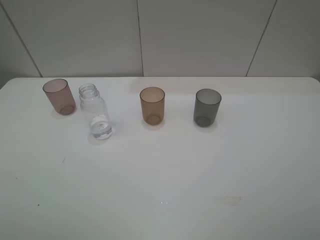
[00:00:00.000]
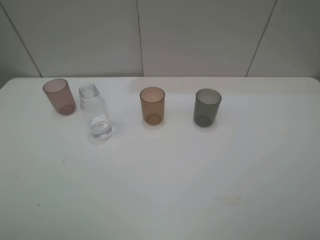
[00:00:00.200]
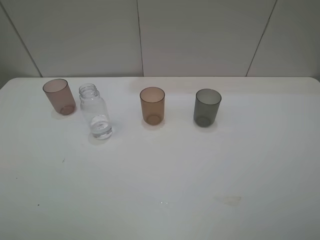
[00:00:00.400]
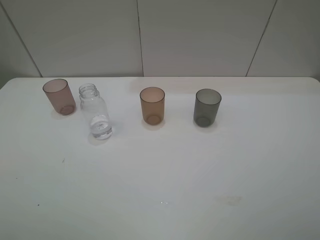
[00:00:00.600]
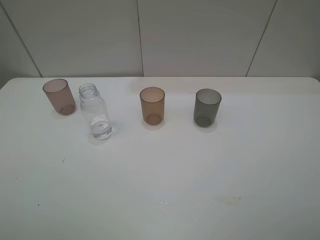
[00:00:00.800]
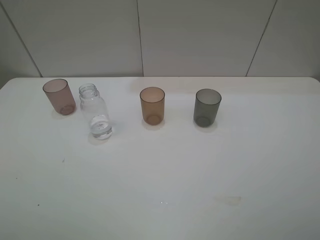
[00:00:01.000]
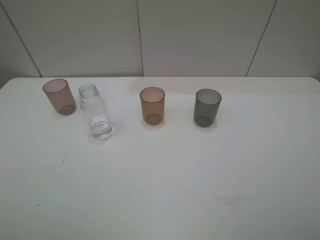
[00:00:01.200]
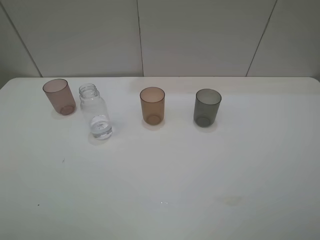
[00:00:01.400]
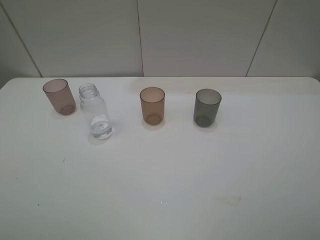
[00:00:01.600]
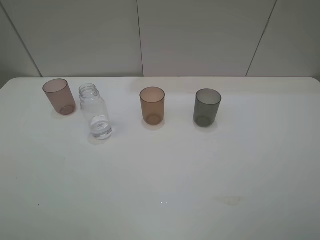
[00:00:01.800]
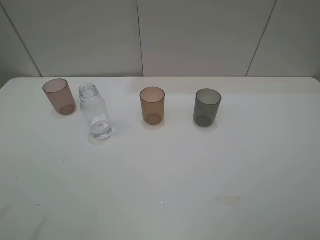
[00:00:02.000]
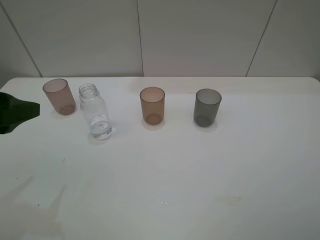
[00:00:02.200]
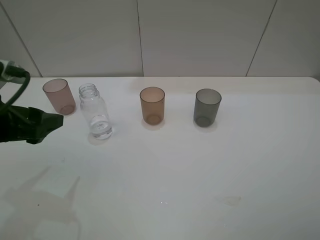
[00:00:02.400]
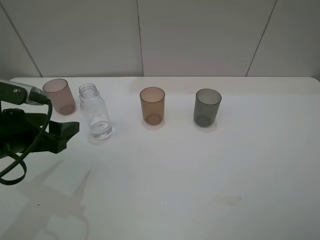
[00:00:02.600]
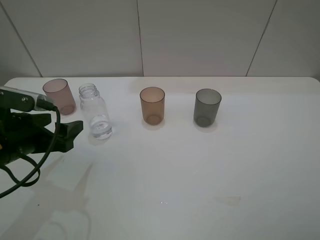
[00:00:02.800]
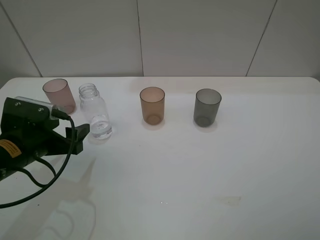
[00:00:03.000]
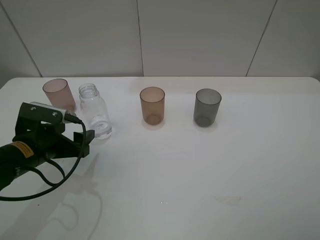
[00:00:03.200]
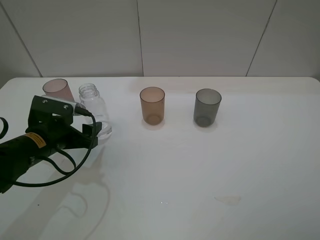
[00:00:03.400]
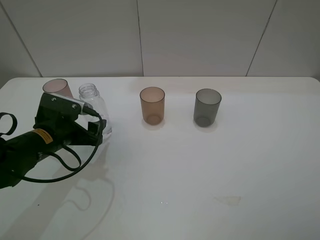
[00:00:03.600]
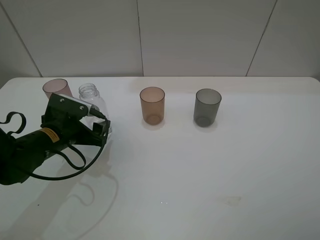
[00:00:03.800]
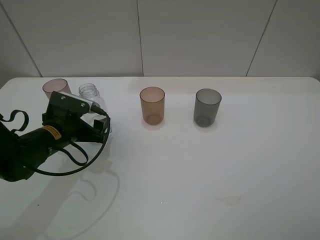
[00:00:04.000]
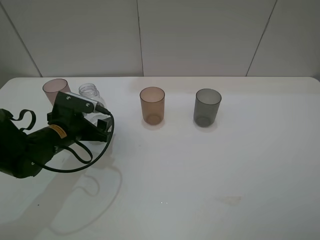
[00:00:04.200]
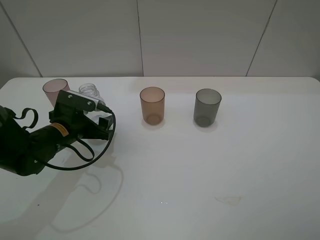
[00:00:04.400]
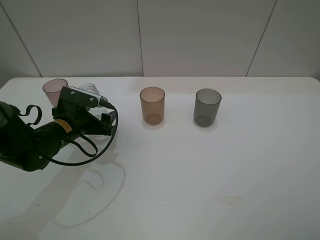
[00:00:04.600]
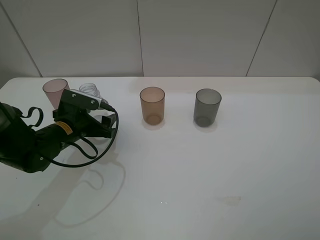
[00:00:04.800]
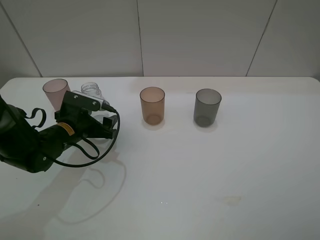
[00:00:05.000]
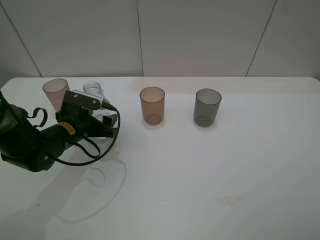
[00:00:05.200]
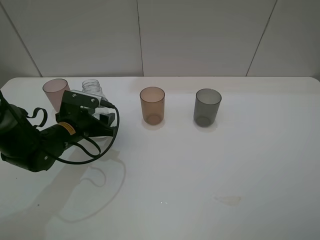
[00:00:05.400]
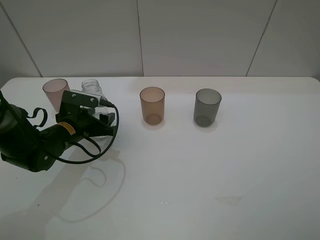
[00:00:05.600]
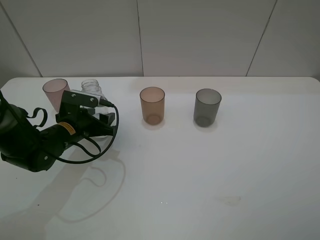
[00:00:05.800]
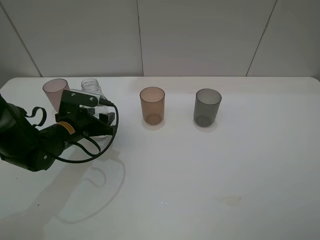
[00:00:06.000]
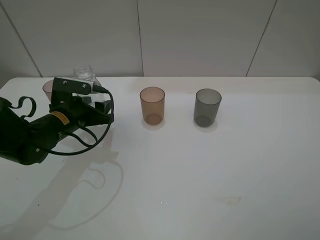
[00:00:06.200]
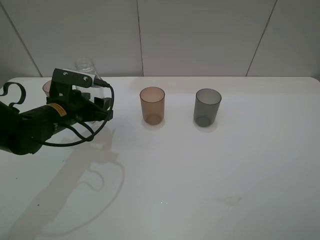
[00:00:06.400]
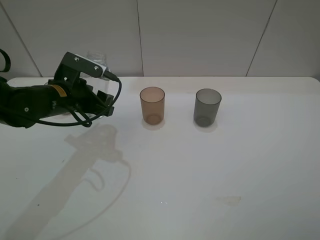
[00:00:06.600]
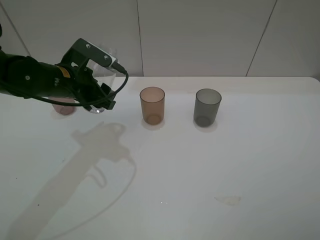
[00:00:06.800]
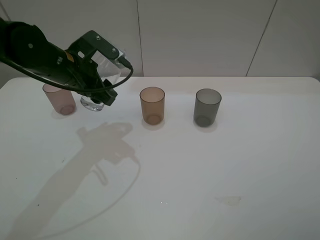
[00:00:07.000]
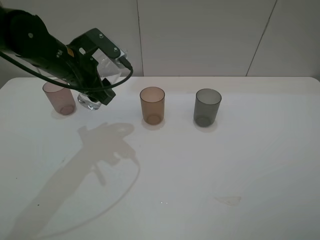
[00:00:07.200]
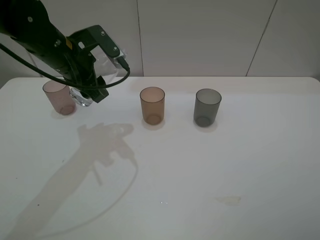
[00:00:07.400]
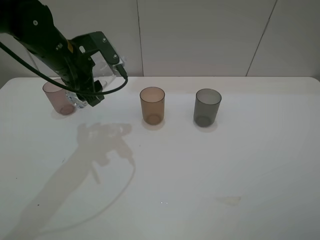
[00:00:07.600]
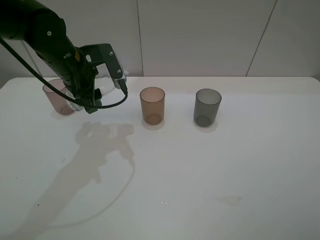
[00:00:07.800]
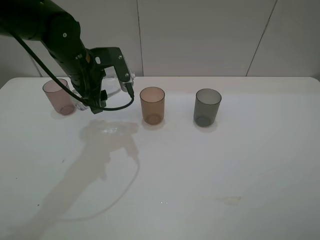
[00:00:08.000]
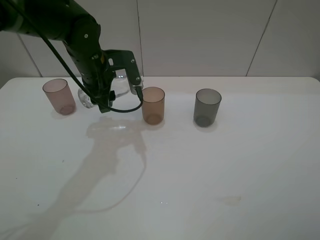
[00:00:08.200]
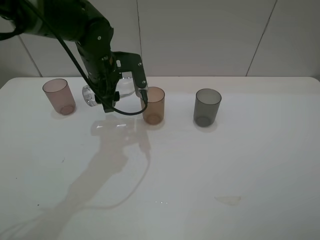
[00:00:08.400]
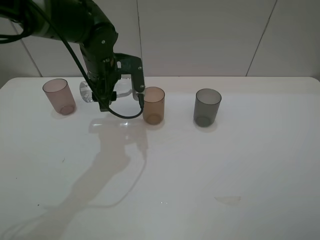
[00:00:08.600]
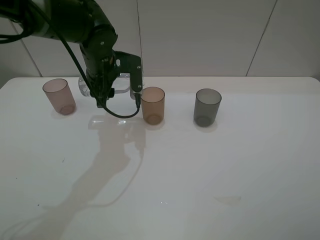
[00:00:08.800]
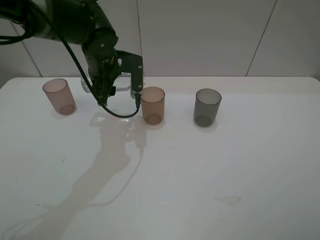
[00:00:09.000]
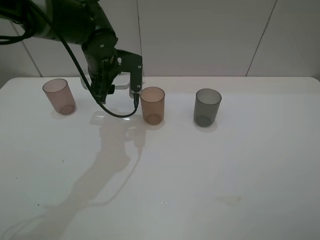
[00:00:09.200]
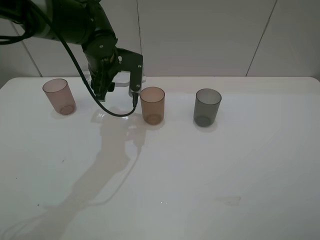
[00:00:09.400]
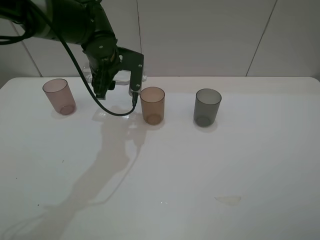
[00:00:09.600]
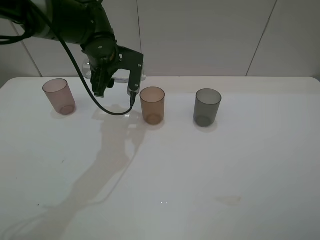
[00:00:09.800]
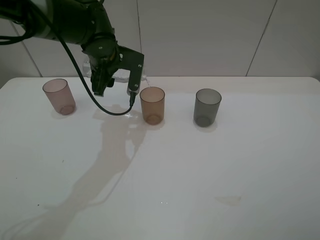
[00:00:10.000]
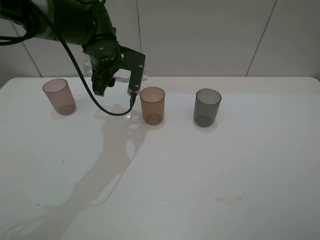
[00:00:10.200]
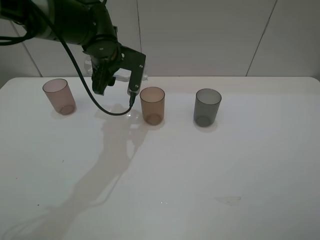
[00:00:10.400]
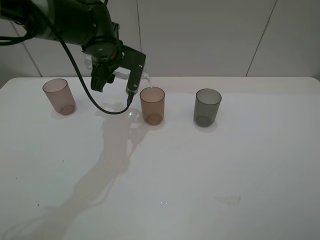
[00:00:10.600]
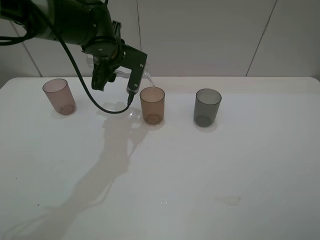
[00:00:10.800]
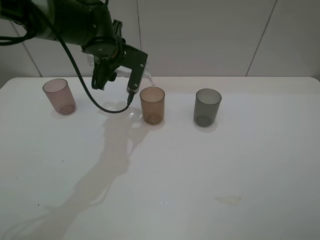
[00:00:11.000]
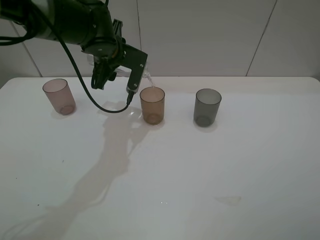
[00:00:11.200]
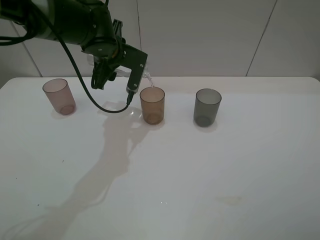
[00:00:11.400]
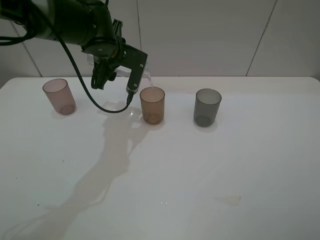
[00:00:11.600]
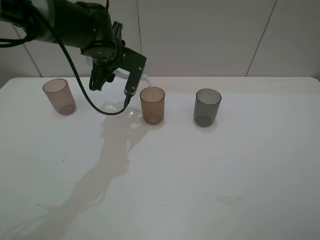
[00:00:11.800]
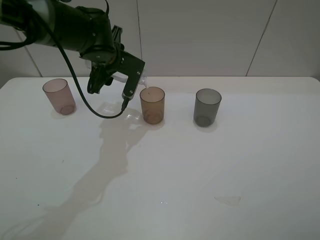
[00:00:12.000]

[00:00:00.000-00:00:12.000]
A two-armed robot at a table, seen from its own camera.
Task of the whole recording: pick up the bottle filled with water and pour water into the middle cup of the three cups.
Step, 00:00:00.000 to 00:00:05.400: Grasp the transparent bottle with the left gripper.
00:00:01.600 to 00:00:03.000: The left gripper is displaced downward and forward by roughly 25 cm.
00:00:03.000 to 00:00:04.400: The left gripper heads forward, covering about 10 cm.
00:00:04.400 to 00:00:06.000: The left gripper closes up.
00:00:06.000 to 00:00:07.600: The left gripper goes about 15 cm upward.
00:00:07.600 to 00:00:09.000: The left gripper heads to the right, covering some 5 cm.
00:00:09.000 to 00:00:10.400: There are only small adjustments of the grippers.
00:00:10.400 to 00:00:12.000: The grippers move only a little.

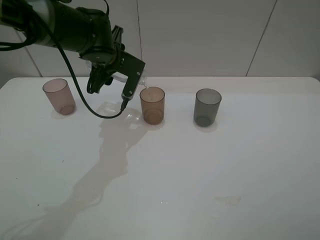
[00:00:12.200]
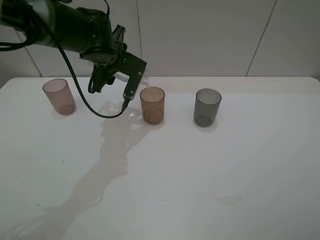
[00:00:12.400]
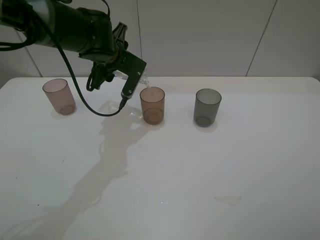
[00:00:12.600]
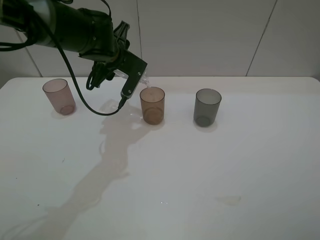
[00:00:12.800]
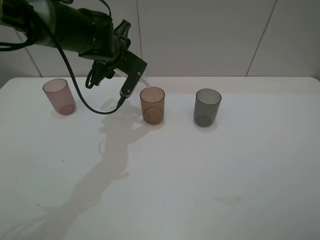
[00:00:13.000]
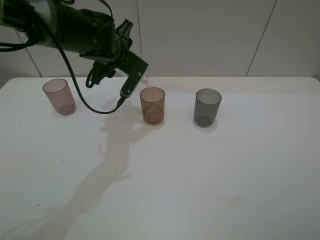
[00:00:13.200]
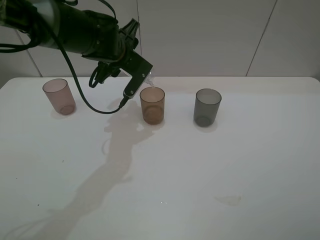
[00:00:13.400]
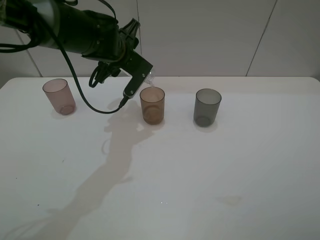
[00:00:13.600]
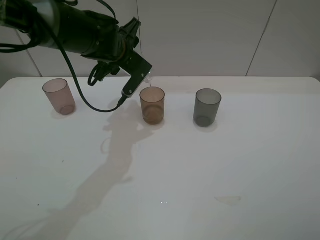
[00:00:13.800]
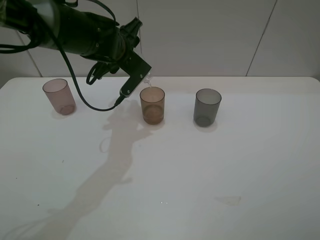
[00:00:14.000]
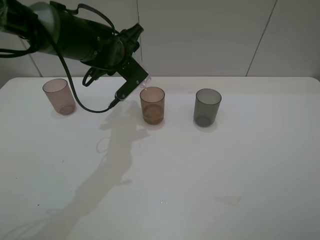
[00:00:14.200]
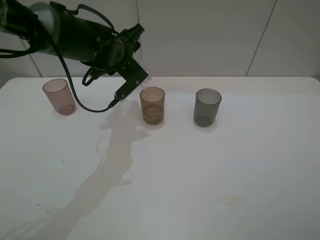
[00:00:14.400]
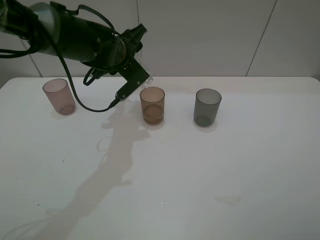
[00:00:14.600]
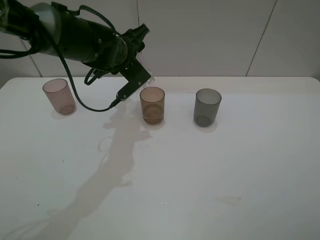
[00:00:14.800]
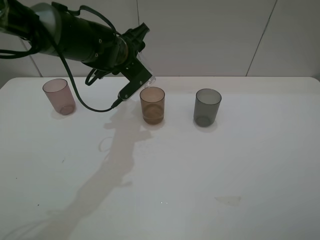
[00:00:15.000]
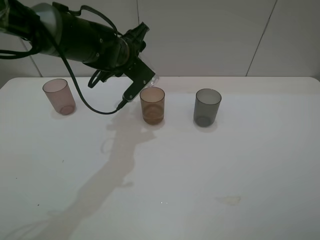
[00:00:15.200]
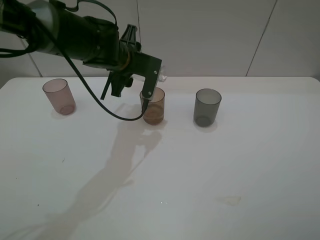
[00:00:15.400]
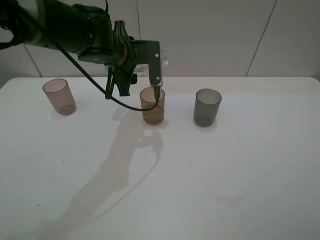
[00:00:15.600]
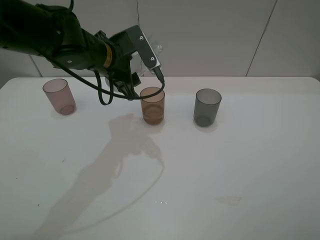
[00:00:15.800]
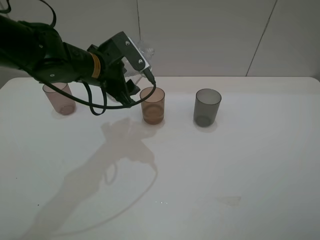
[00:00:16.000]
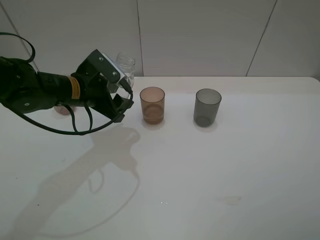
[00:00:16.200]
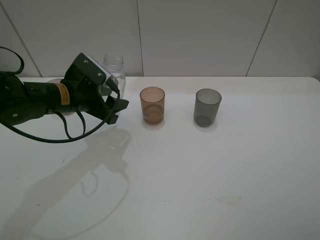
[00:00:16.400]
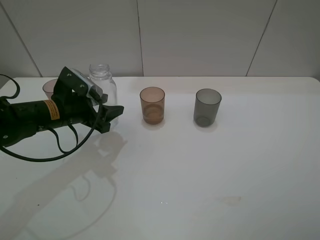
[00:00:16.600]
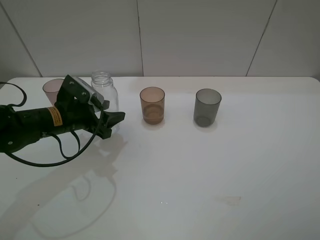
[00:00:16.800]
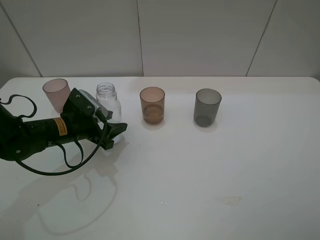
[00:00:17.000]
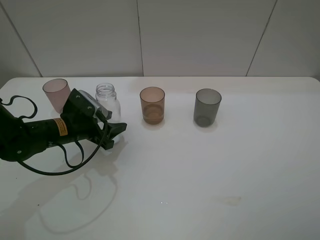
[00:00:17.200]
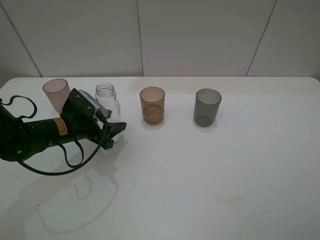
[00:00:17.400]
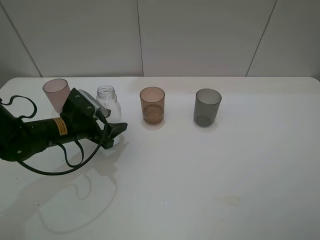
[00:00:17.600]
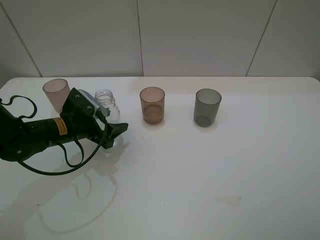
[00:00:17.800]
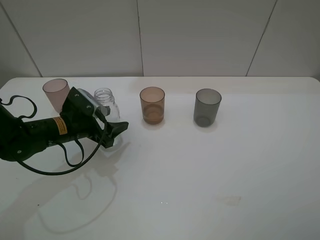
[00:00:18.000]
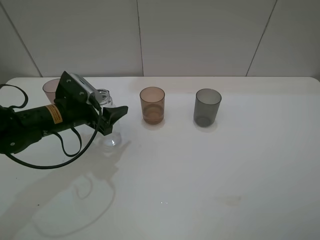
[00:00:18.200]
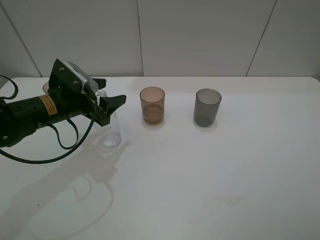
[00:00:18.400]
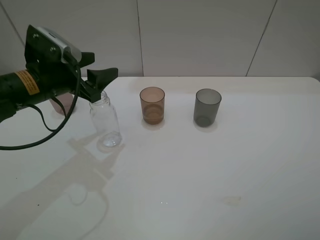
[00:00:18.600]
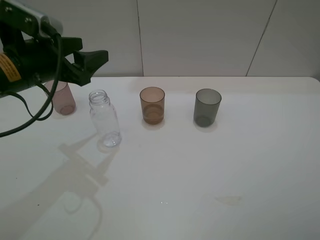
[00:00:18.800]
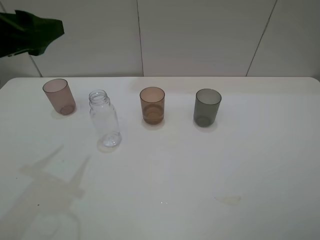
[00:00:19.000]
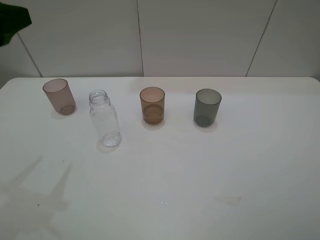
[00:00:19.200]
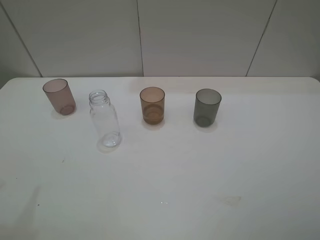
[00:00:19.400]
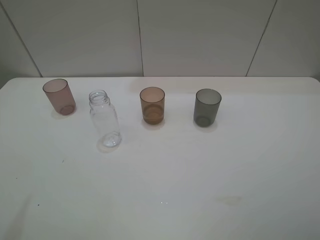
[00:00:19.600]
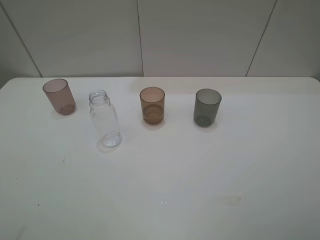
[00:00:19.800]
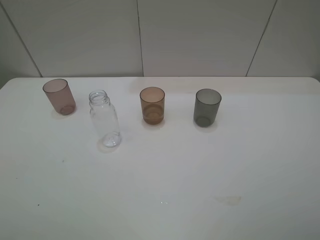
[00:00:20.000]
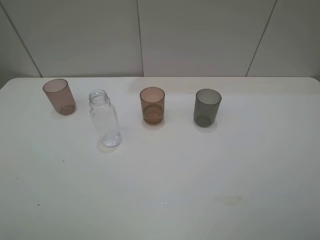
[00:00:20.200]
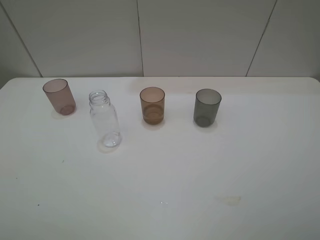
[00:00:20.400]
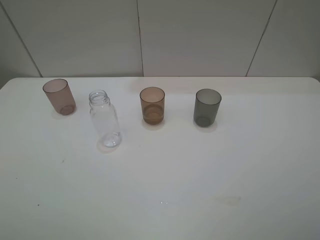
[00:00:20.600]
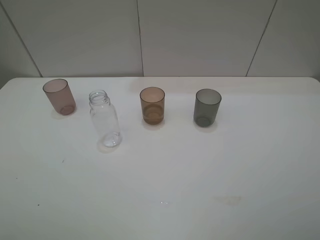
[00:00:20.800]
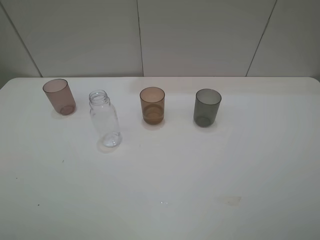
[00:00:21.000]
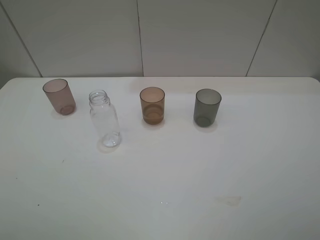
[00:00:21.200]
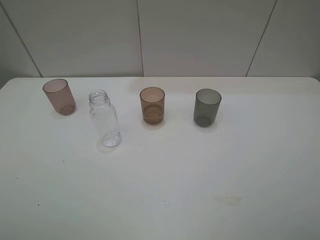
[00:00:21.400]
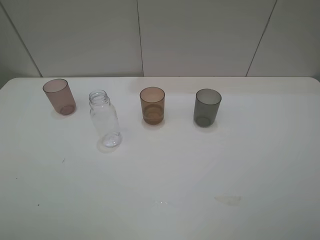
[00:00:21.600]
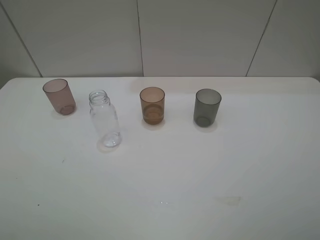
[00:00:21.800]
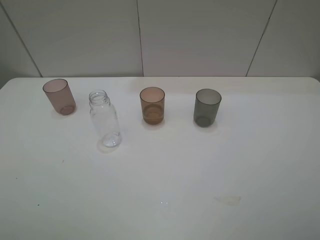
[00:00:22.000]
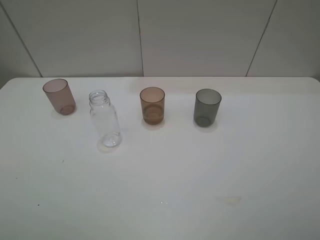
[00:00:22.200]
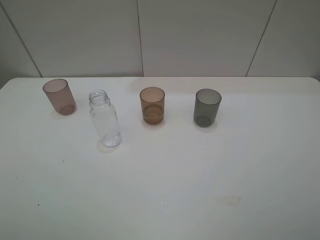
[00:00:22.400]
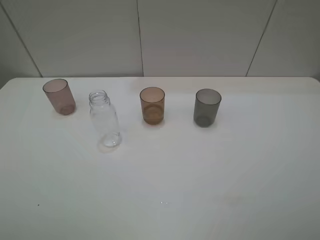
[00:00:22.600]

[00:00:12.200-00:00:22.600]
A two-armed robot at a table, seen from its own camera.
Task of the whole recording: pick up the bottle filled with water and pour water into the middle cup of the three cups.
Step, 00:00:12.200 to 00:00:15.400: Pour water from transparent bottle to brown cup with the left gripper.
Step, 00:00:15.600 to 00:00:18.200: Place the transparent bottle with the left gripper.
00:00:12.200 to 00:00:13.600: There are only small adjustments of the grippers.
00:00:13.600 to 00:00:15.200: The grippers make only small movements.
00:00:15.200 to 00:00:16.600: The left gripper is displaced to the left, backward and downward by approximately 15 cm.
00:00:16.600 to 00:00:18.200: The left gripper opens its fingers.
00:00:18.200 to 00:00:19.600: The left gripper moves upward, backward and to the left, about 30 cm.
